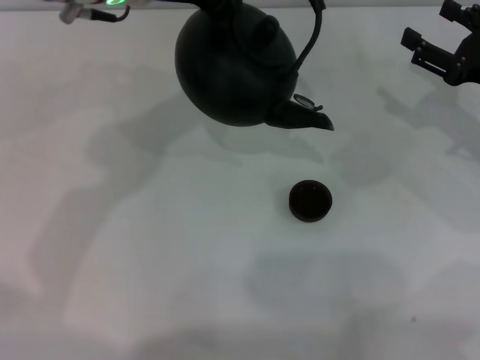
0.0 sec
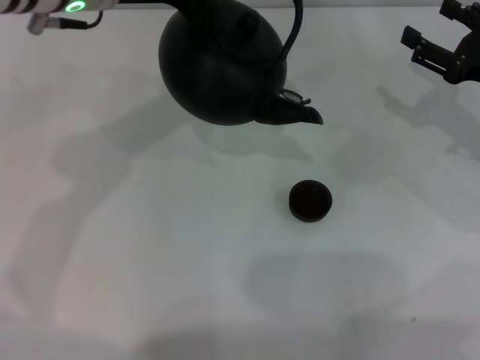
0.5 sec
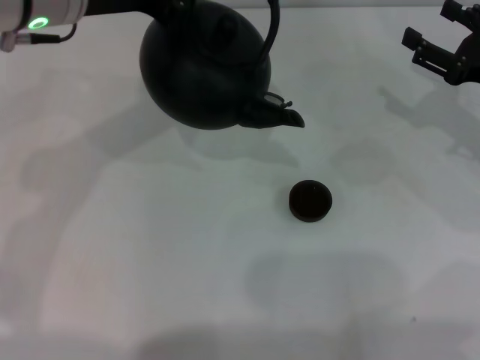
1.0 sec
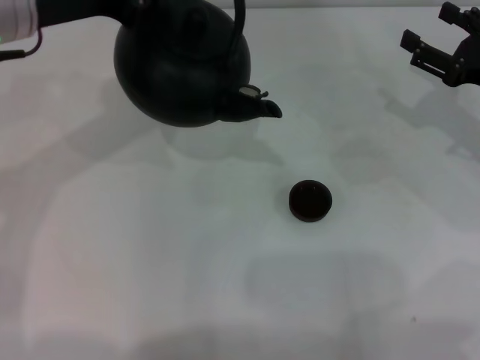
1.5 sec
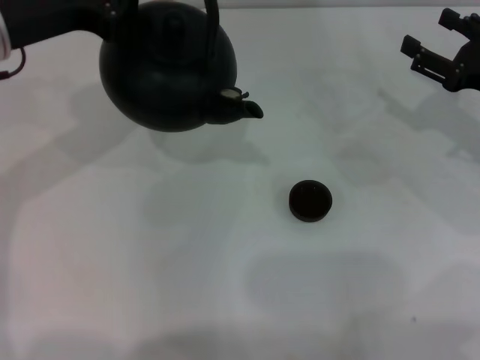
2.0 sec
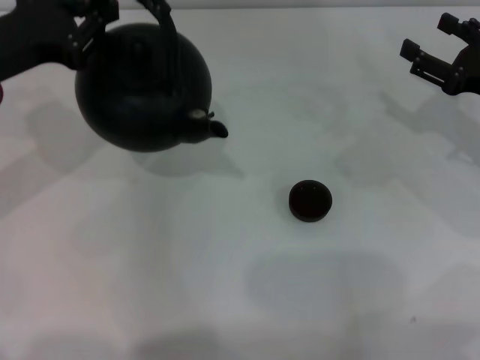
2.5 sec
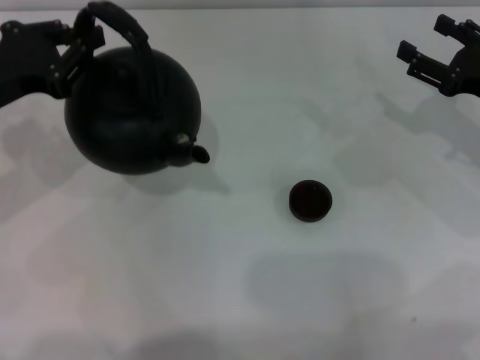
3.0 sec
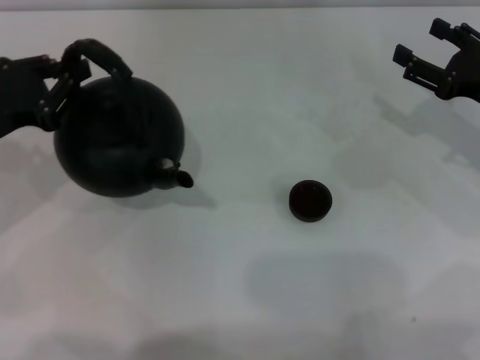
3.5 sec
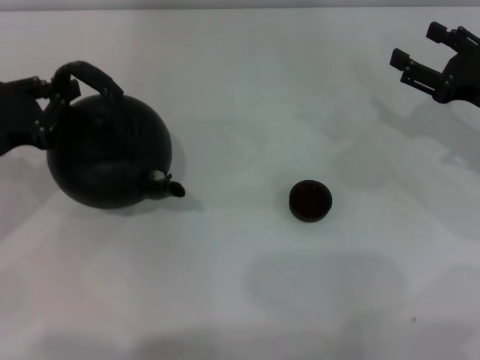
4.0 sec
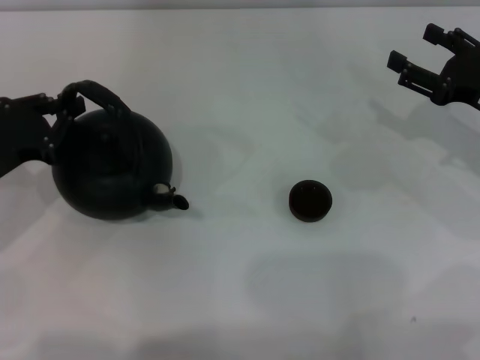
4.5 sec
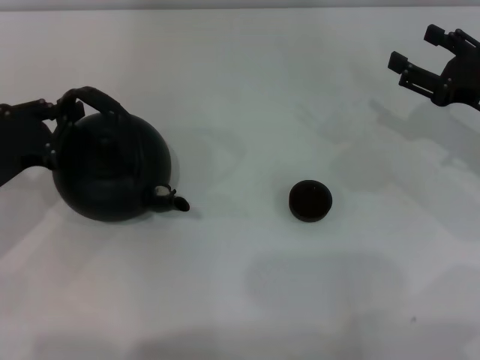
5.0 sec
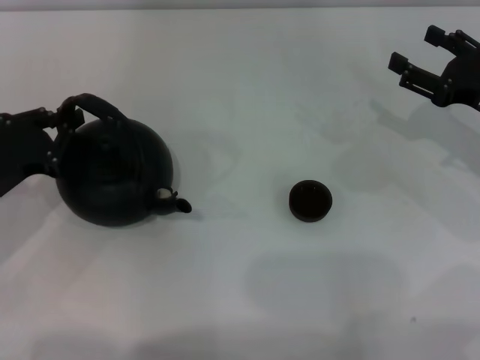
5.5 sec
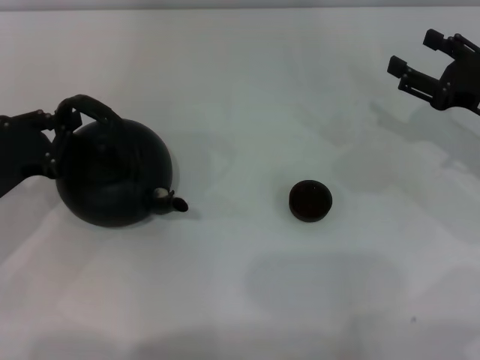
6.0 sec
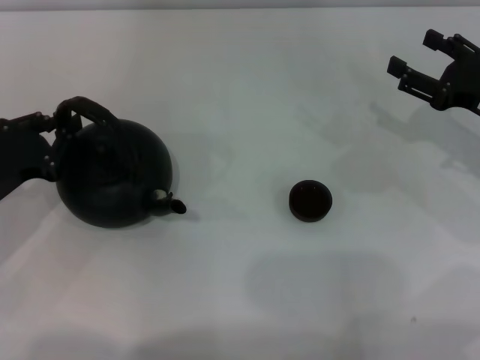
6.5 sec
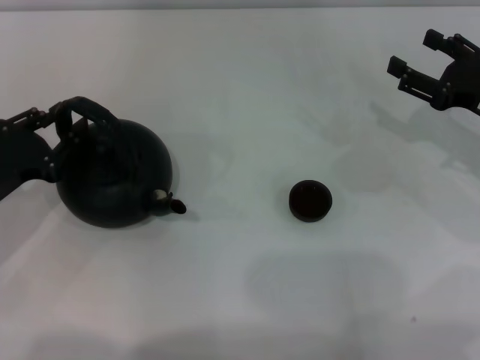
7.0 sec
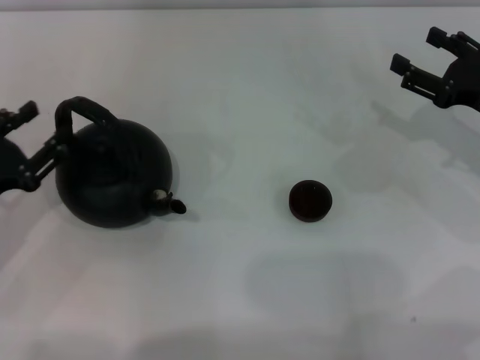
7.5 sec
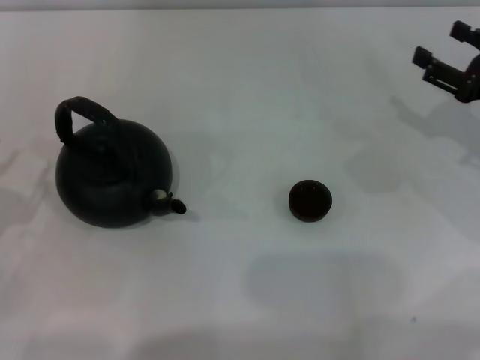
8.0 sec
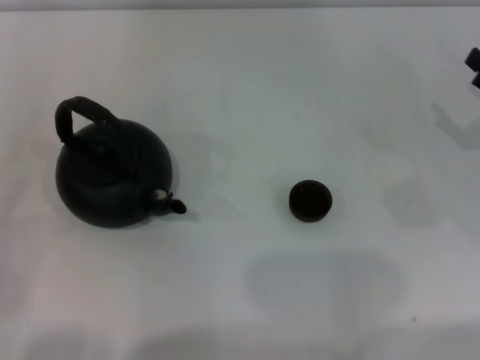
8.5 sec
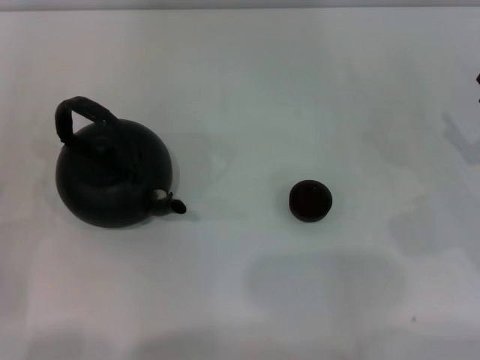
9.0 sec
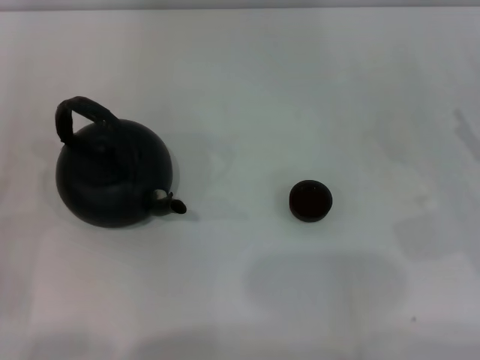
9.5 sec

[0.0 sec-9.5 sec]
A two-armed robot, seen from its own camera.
Task of the whole recording: Grasp the handle of the teapot with one hand and pour tea into the teacup.
Step, 0.0 sec to 7.5 sec: Put down the teapot with the left gripper.
0.0 sec to 2.0 sec: The left gripper goes some 10 cm to the left.
2.0 sec to 4.0 sec: The left gripper shifts about 15 cm downward, to the left and backward.
4.0 sec to 5.5 sec: The grippers make only small movements.
5.5 sec to 7.5 sec: The left gripper opens.
7.5 sec to 9.5 sec: The two grippers go roughly 10 cm backward.
